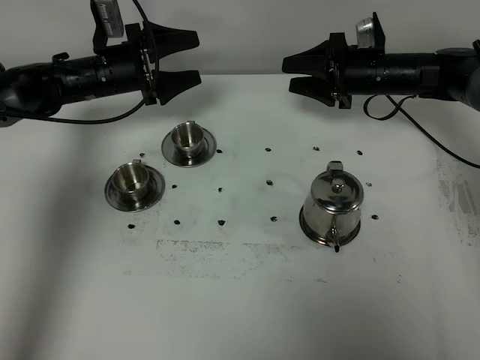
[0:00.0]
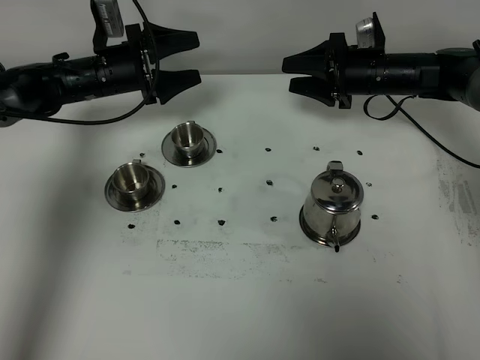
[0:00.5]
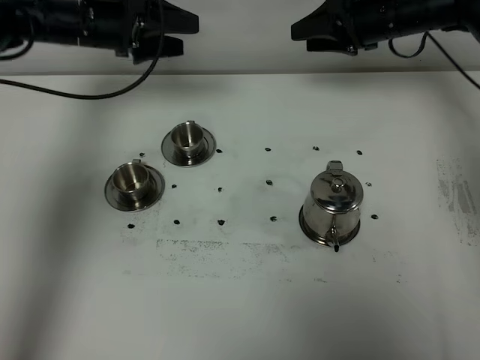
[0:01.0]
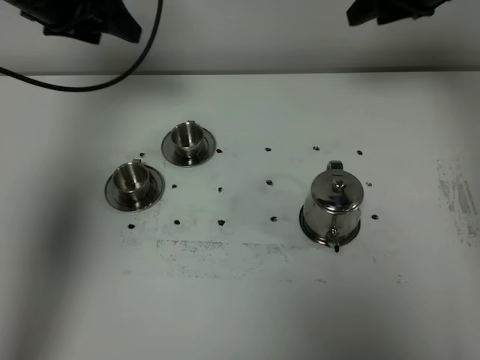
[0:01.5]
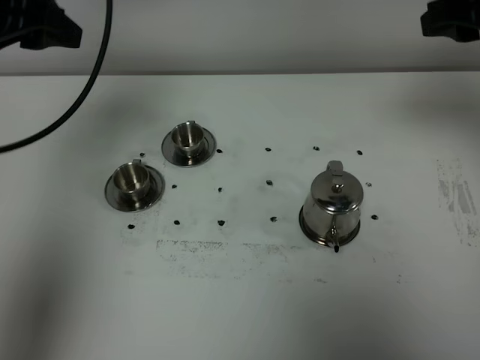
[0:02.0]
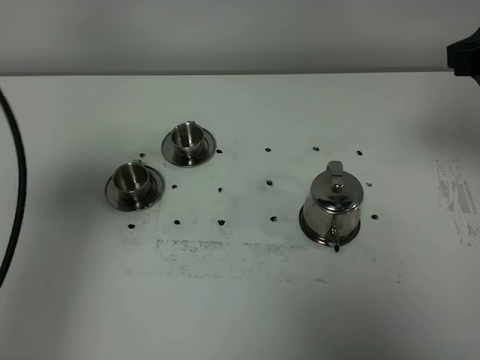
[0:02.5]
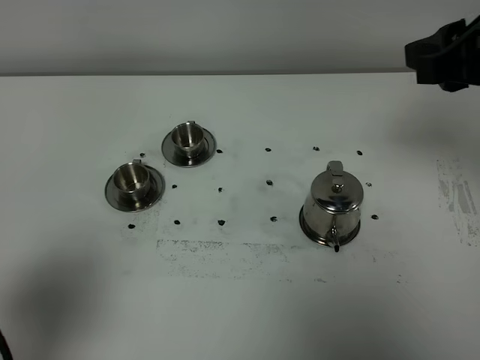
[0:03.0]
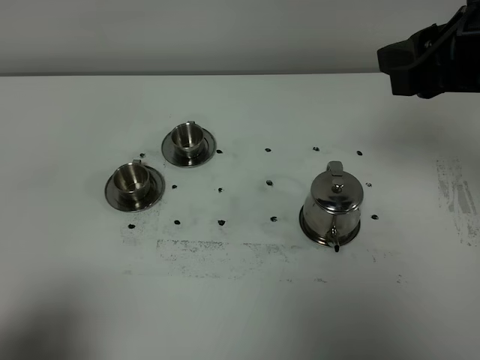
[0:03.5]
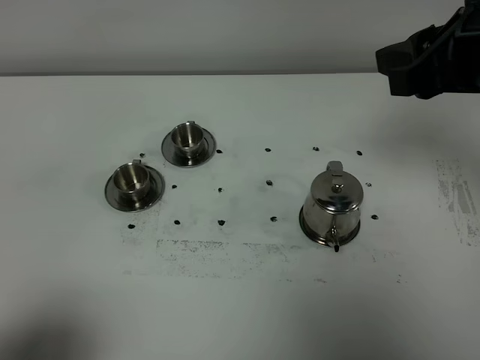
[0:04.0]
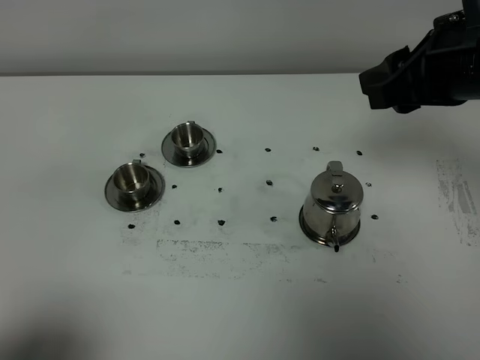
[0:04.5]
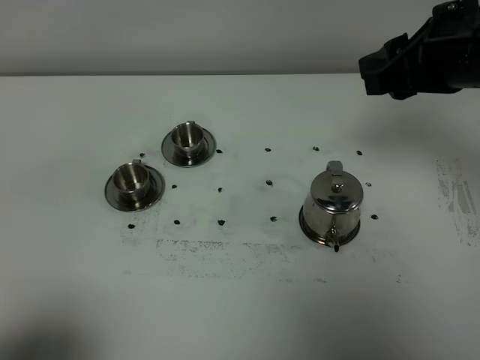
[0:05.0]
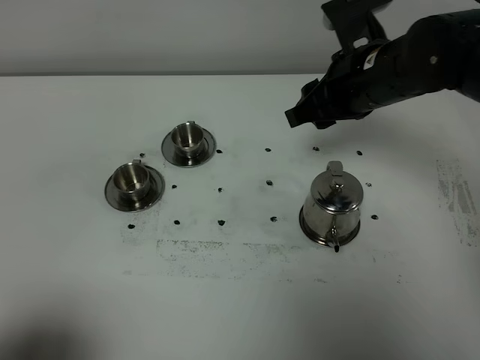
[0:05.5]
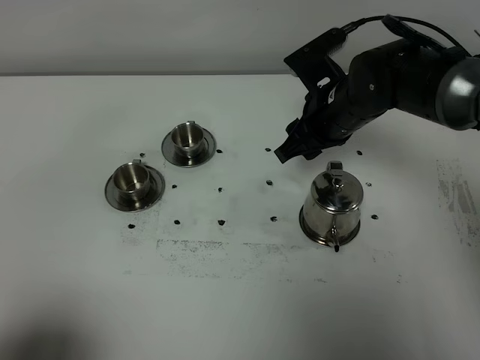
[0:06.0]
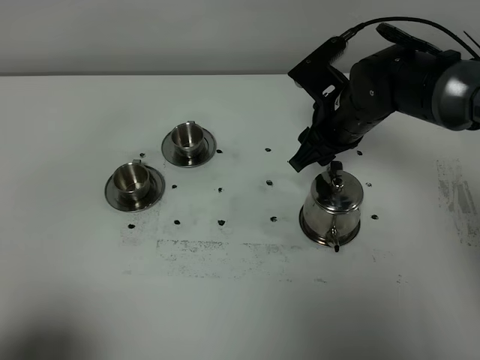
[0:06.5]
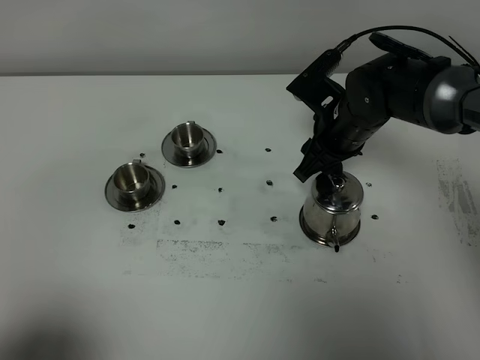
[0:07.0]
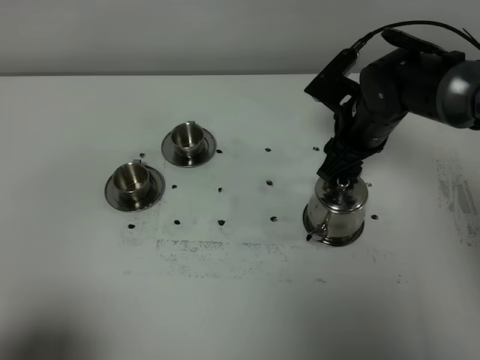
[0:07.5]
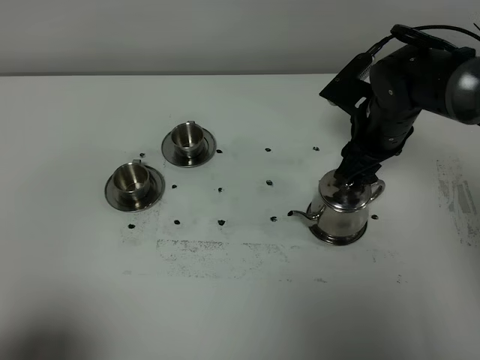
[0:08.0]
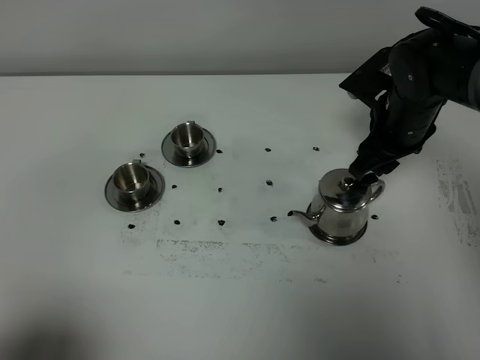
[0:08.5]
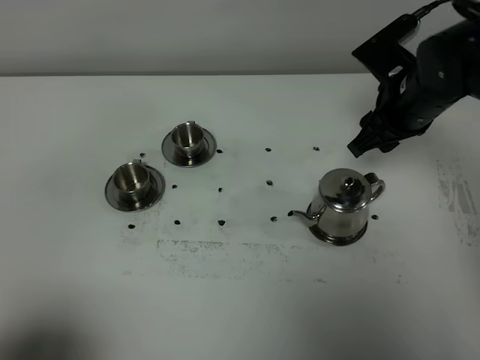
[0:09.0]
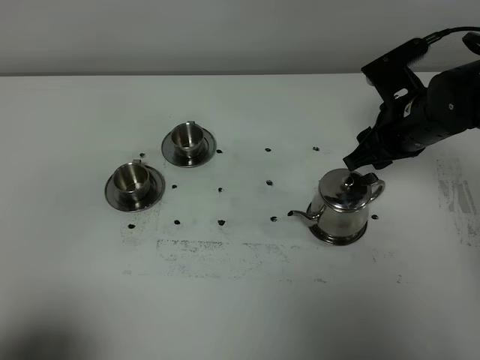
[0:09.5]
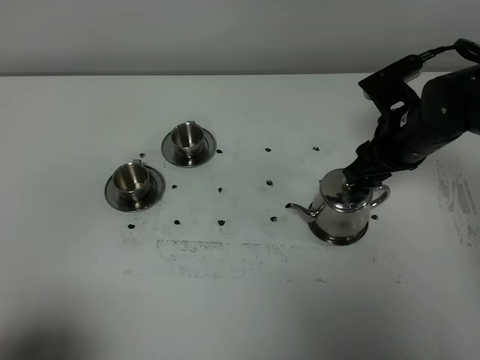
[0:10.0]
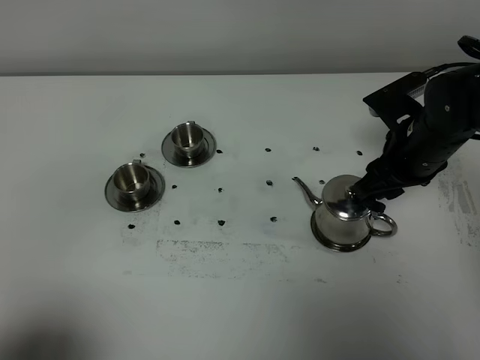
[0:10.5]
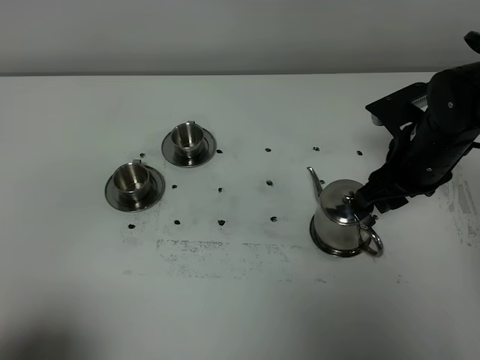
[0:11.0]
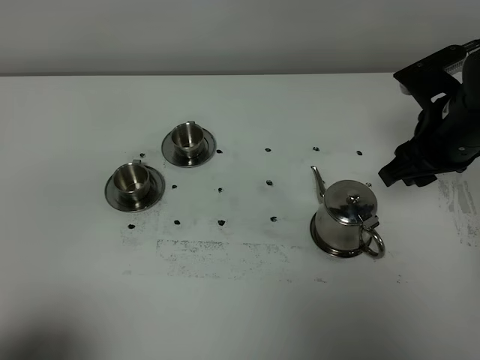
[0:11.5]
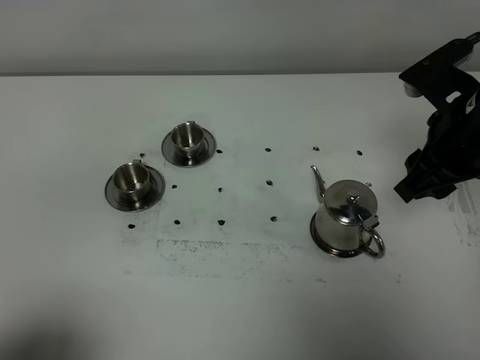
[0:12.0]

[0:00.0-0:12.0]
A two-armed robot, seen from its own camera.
Task of the whole recording: grasp the stainless steel teapot and pour the tea into the two stainless steel teacups one by one, put the stainless steel teapot back in its original place.
0:00.0 to 0:02.0: The grippers both shift upward and backward by approximately 30 cm. The left gripper closes its fingers.
0:02.0 to 0:04.0: The right gripper heads backward and to the left, covering approximately 10 cm. The left gripper goes roughly 35 cm backward.
0:04.0 to 0:06.0: The right gripper goes roughly 25 cm downward, forward and to the left.
0:06.0 to 0:08.0: The right gripper heads to the right, covering roughly 5 cm.
0:10.0 to 0:12.0: The right gripper goes about 10 cm upward and backward.

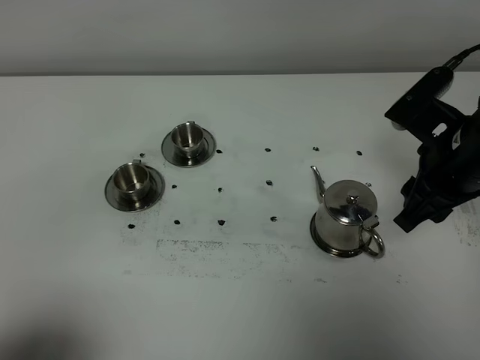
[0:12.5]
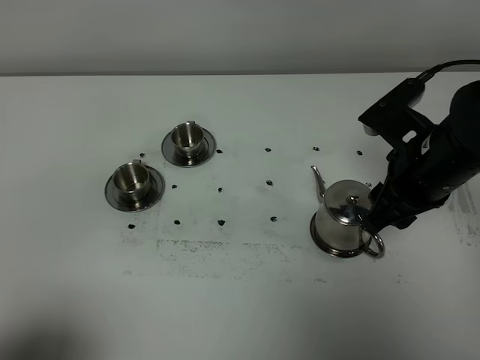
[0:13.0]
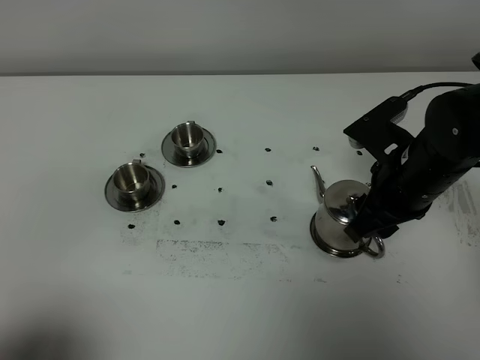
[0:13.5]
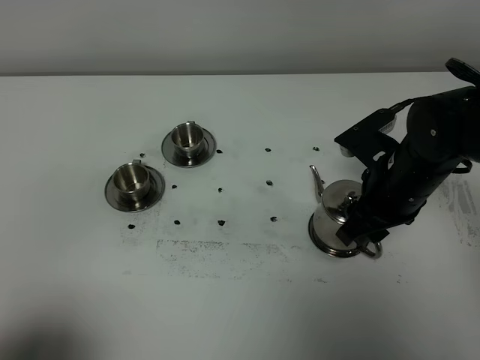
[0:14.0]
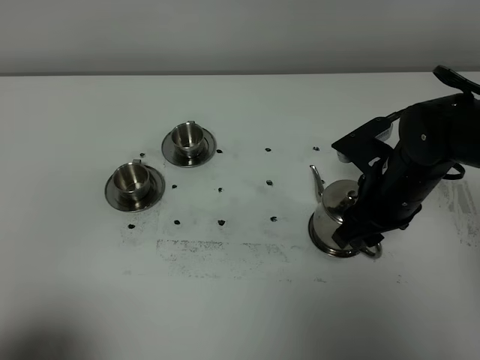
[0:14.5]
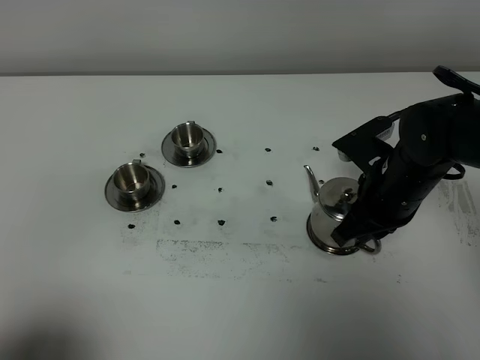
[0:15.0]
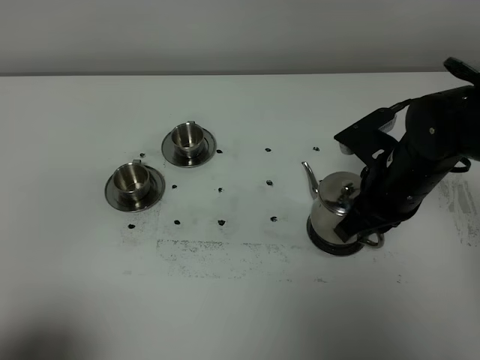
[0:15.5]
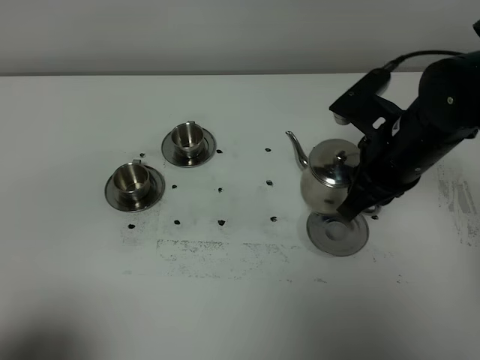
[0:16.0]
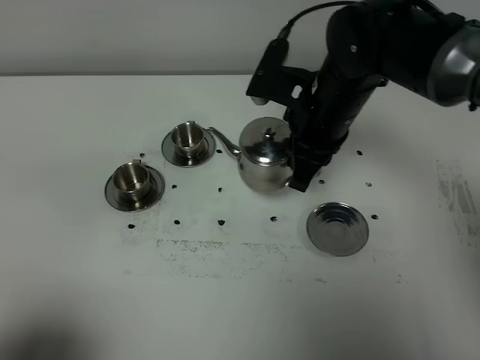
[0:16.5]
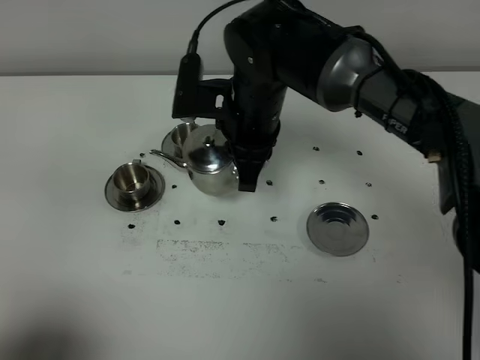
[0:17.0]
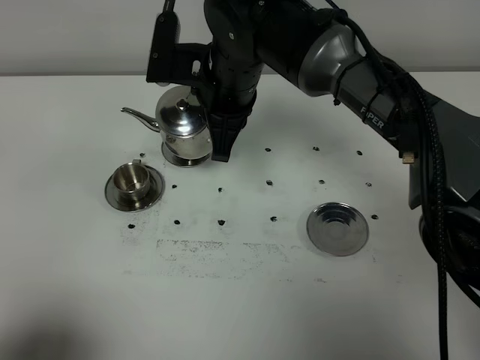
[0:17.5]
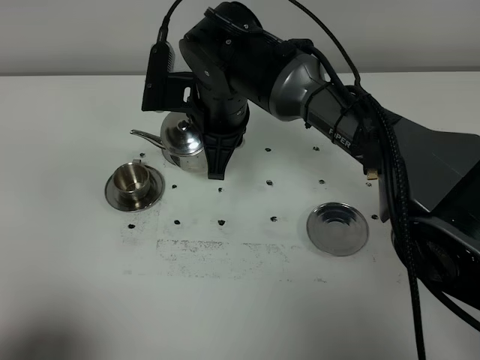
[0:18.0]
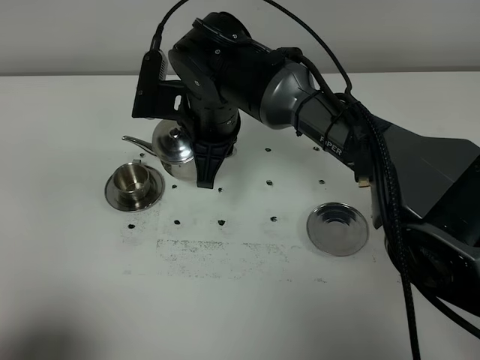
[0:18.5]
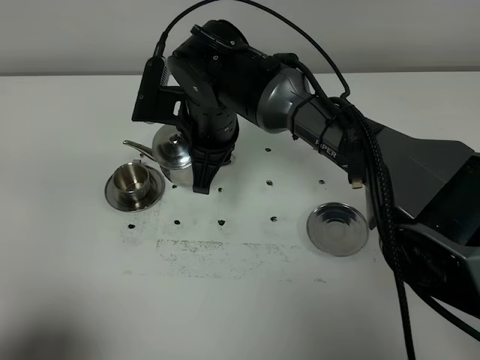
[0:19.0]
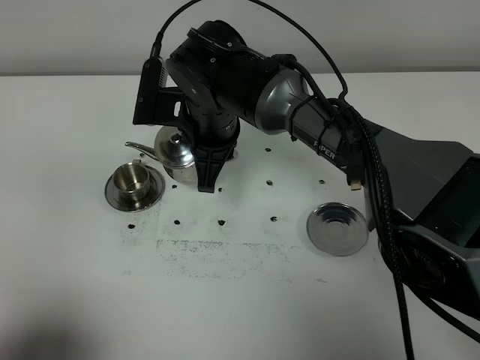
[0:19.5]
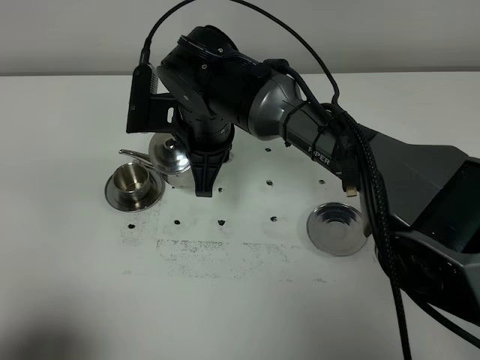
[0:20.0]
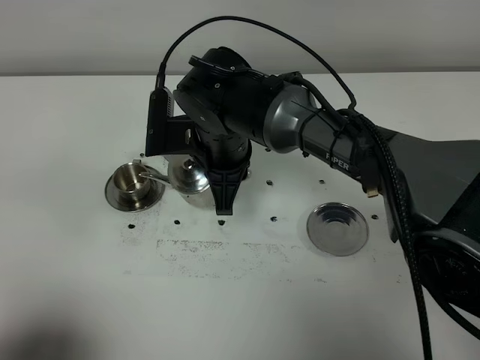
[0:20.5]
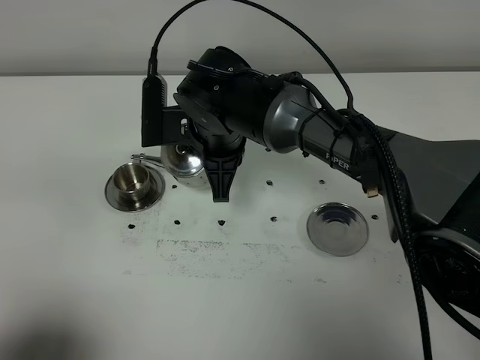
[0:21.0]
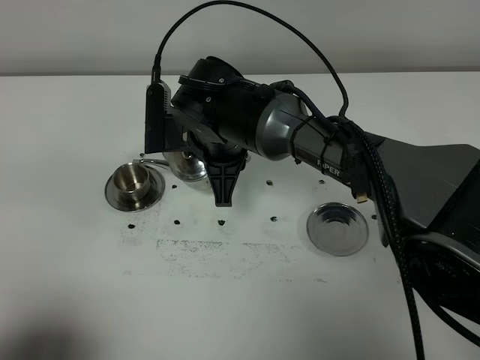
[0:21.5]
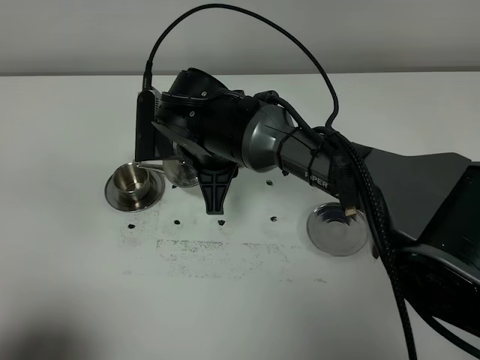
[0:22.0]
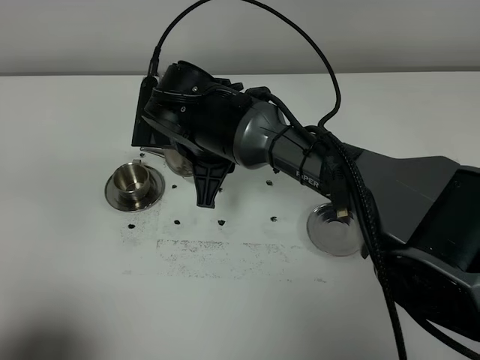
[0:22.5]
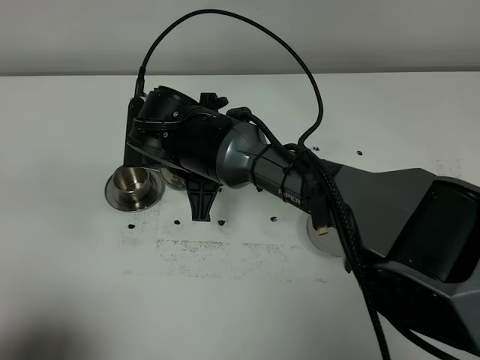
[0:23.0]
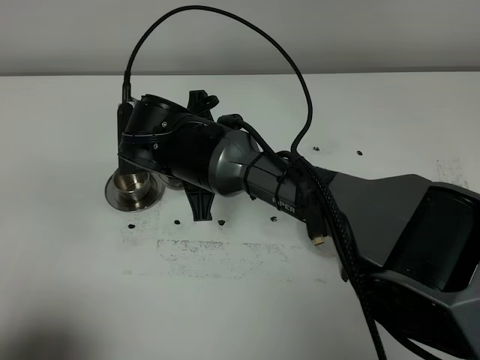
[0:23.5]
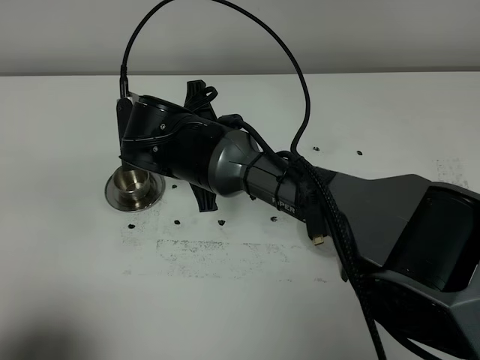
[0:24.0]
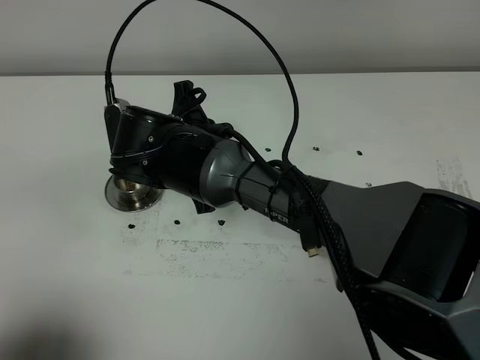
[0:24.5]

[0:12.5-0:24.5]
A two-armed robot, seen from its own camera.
Task of the whole recording: grasp the stainless steel teapot and pour the tea into the two stainless steel teacups one by one, put the stainless steel teapot back in its original place.
Step, 0:12.5 to 0:15.5: Pick up the teapot with the right gripper.
0:12.5 to 0:14.5: The right gripper is displaced downward by approximately 10 cm.
0:14.5 to 0:16.5: The right gripper goes approximately 15 cm to the left, upward and forward, and closes up.
0:16.5 to 0:18.5: The right gripper heads to the left, covering about 10 cm.
0:18.5 to 0:20.5: The grippers make only small movements.

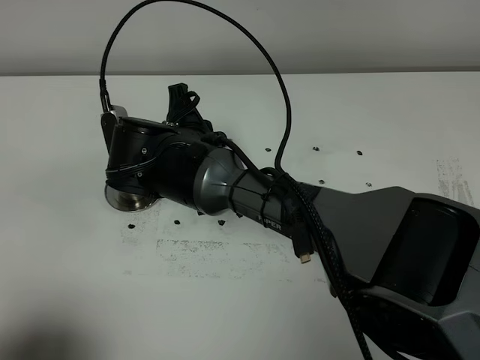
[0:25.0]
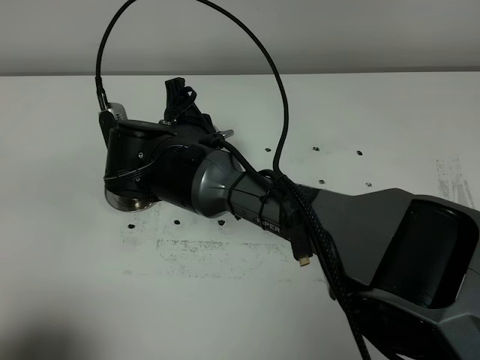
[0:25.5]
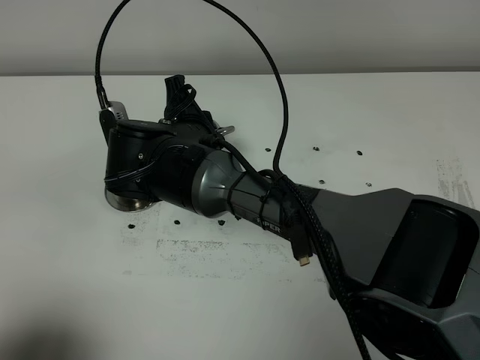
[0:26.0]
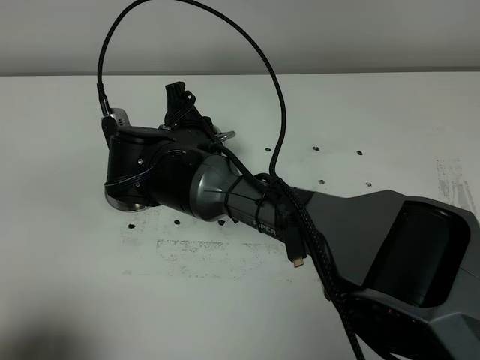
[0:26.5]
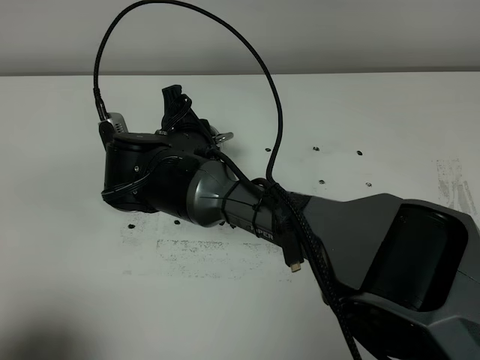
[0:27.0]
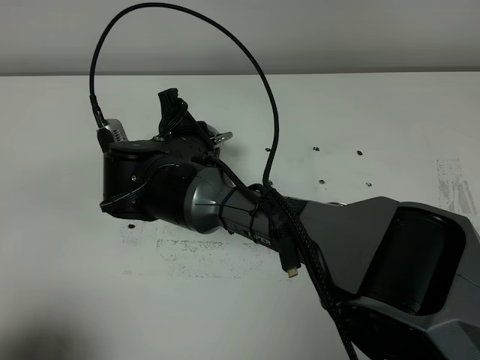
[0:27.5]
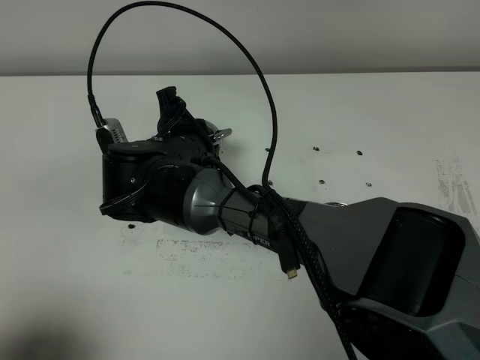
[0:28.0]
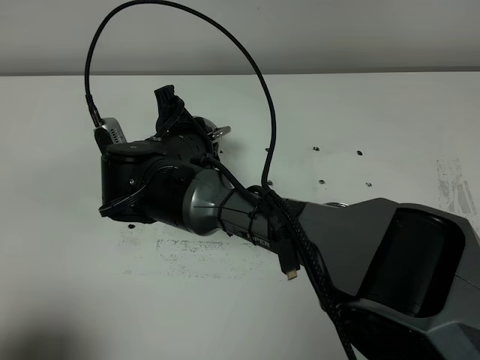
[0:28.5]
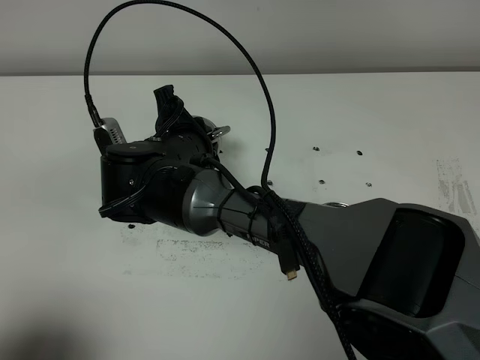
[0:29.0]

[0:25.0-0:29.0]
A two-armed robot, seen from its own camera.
Task of the whole recording: grasp the stainless steel teapot and pour the tea into the two stainless steel teacups one by one, put the stainless steel teapot back in its original place.
0:25.0 to 0:29.0: The grippers move only a little.
